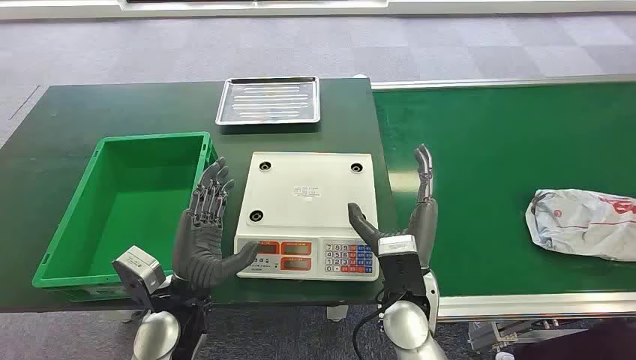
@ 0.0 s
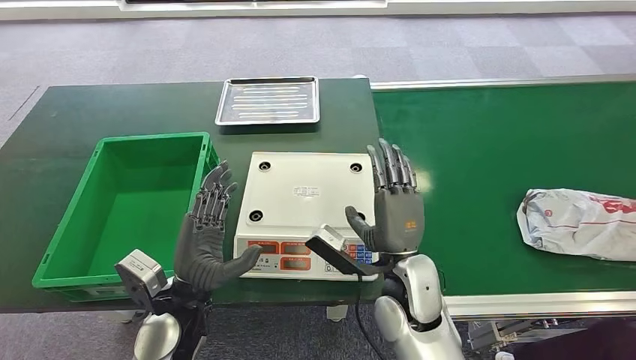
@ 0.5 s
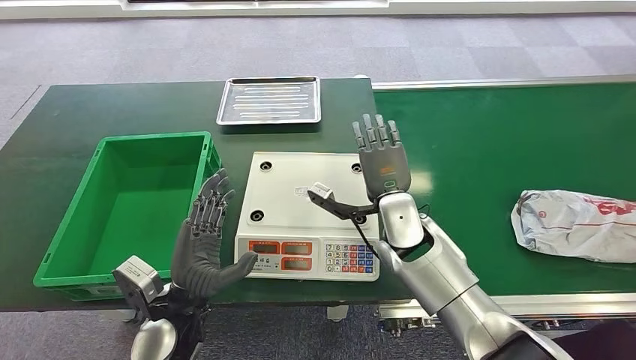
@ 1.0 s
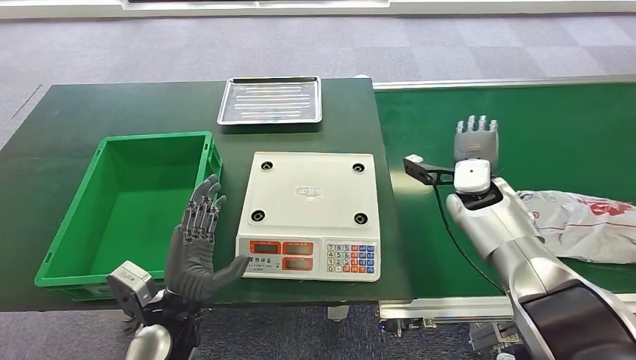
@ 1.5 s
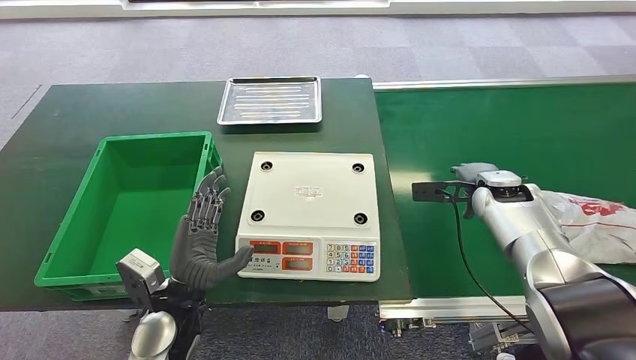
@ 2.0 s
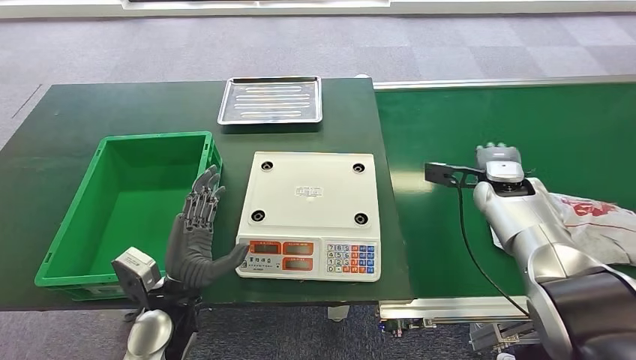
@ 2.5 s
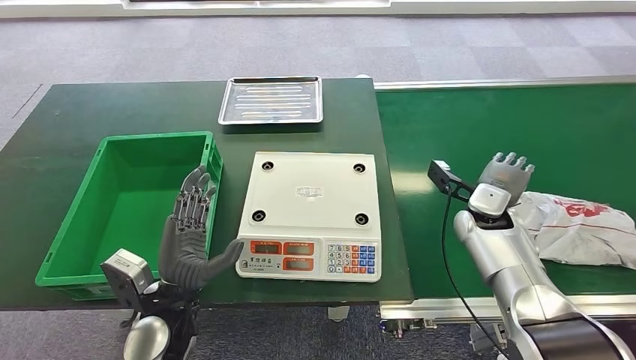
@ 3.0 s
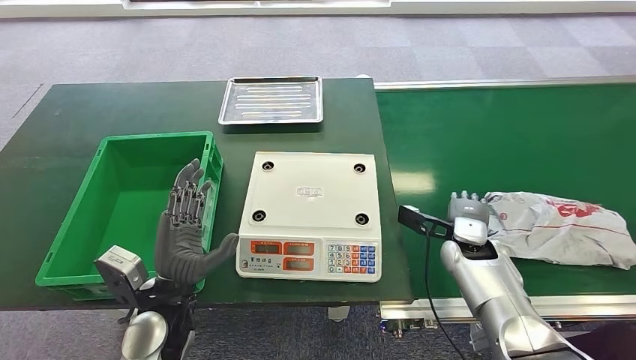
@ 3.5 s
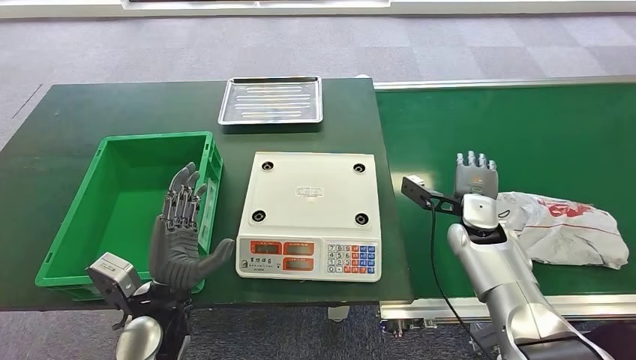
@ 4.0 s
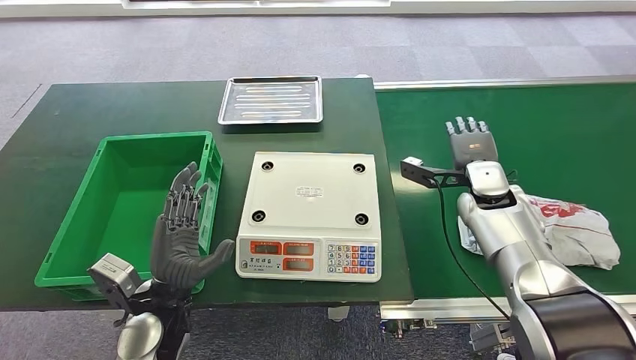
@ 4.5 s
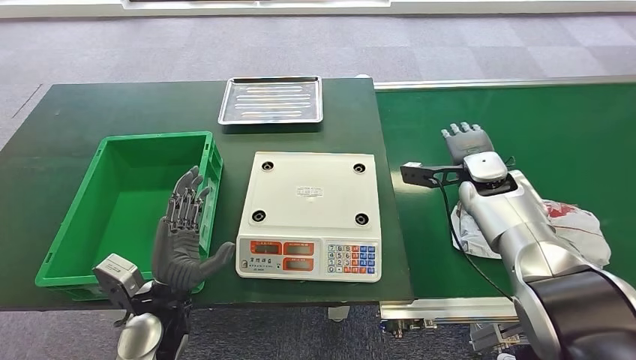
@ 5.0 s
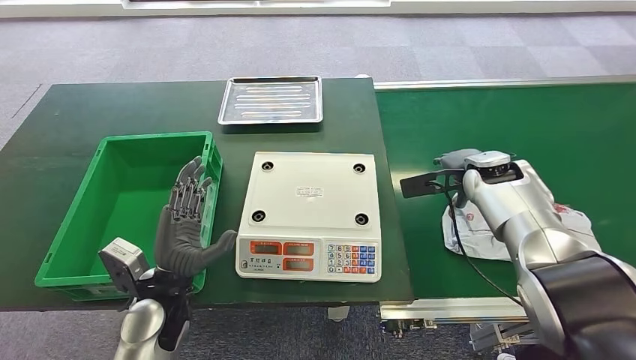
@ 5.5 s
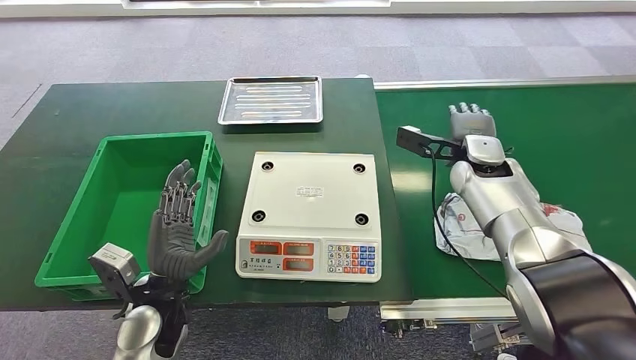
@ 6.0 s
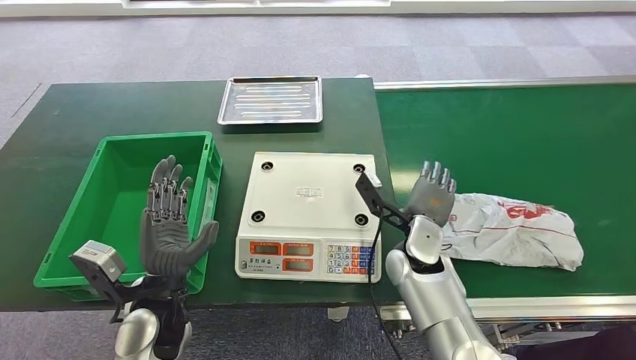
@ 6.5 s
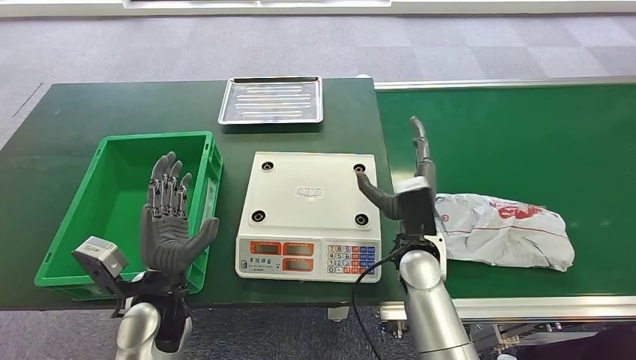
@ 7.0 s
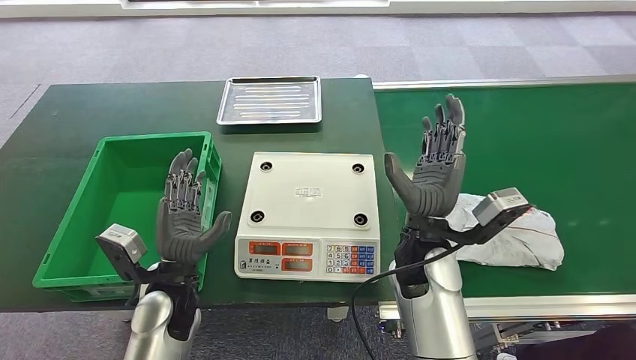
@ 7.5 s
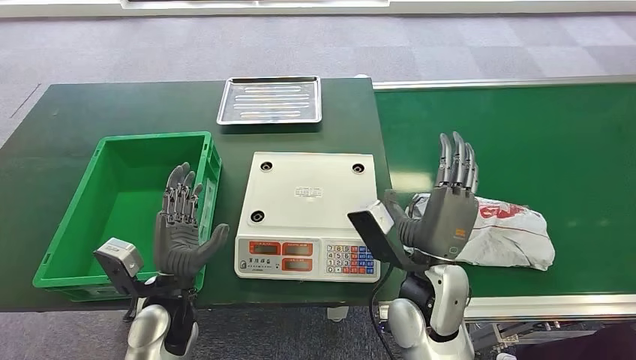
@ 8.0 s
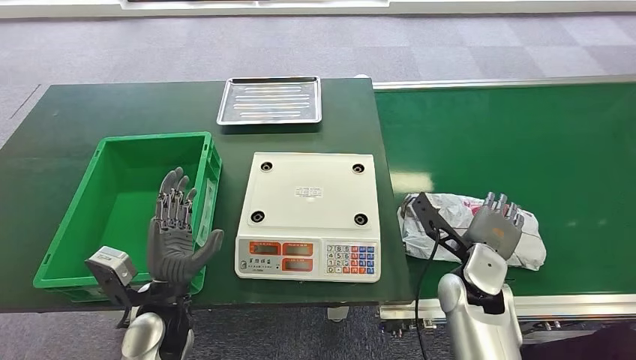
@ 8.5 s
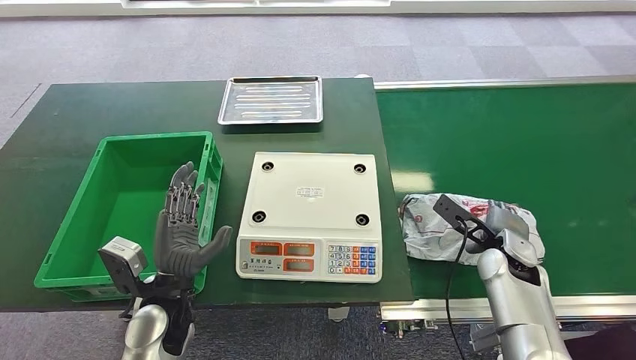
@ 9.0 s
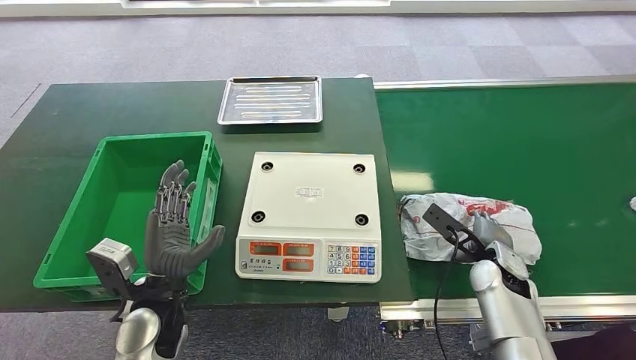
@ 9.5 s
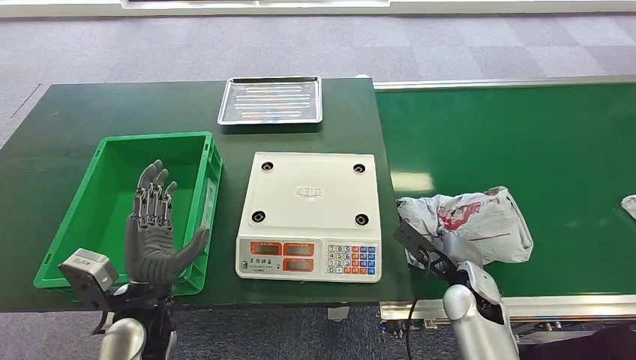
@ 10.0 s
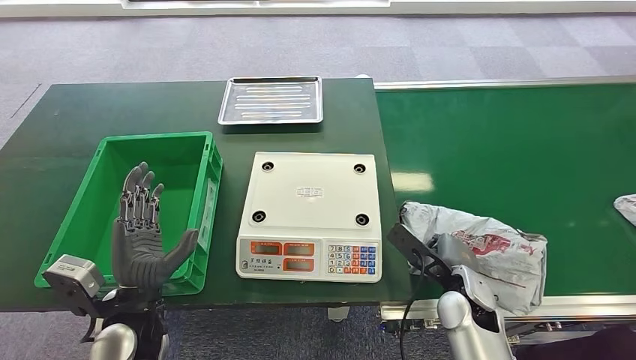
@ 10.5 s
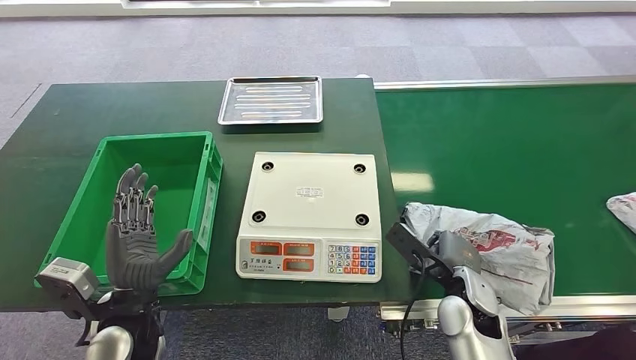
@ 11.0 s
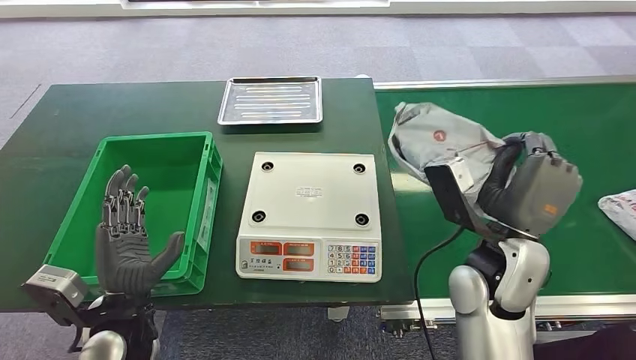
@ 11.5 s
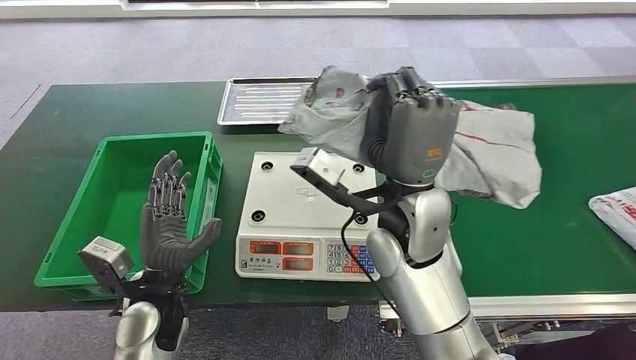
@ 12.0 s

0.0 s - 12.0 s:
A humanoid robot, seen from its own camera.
2.0 s - 4.0 s: The right hand goes about 5 cm to the left.
4.0 s - 6.0 s: The right hand goes approximately 10 cm upward and forward.
6.0 s - 8.0 s: The right hand heads backward and to the left, covering some 25 cm.
8.0 s - 10.0 s: The right hand travels to the right and downward by roughly 15 cm.

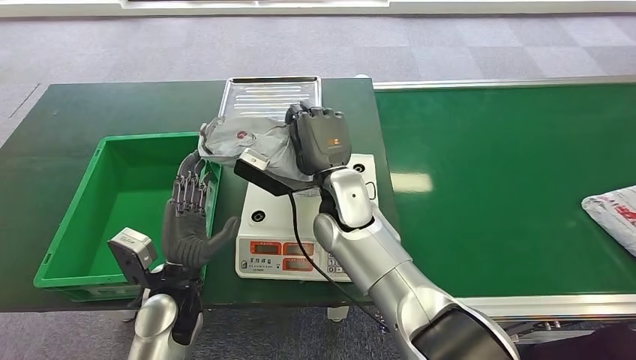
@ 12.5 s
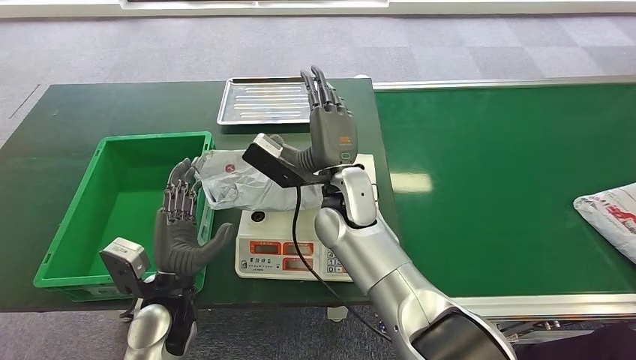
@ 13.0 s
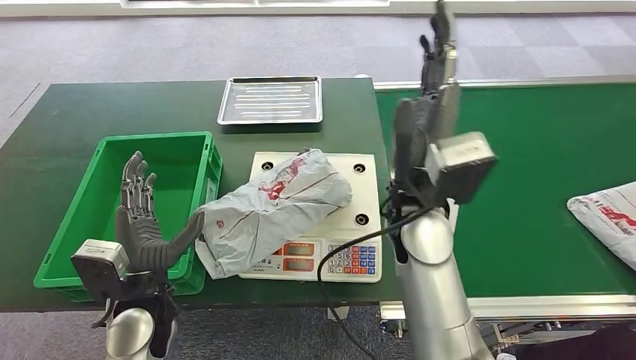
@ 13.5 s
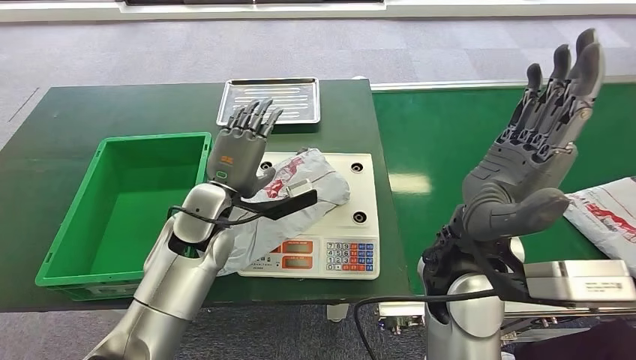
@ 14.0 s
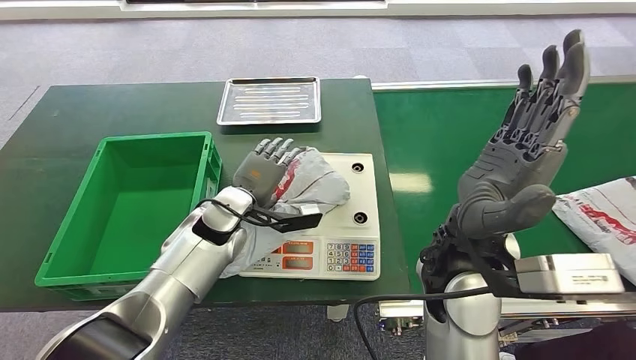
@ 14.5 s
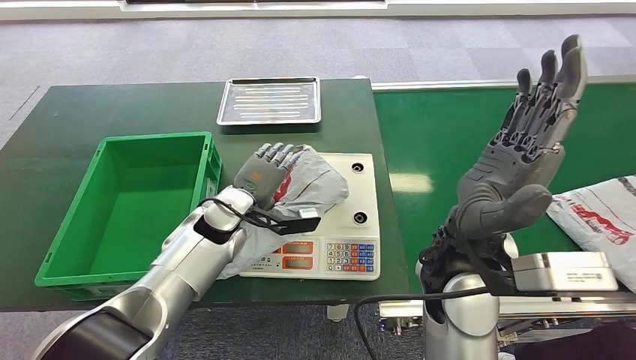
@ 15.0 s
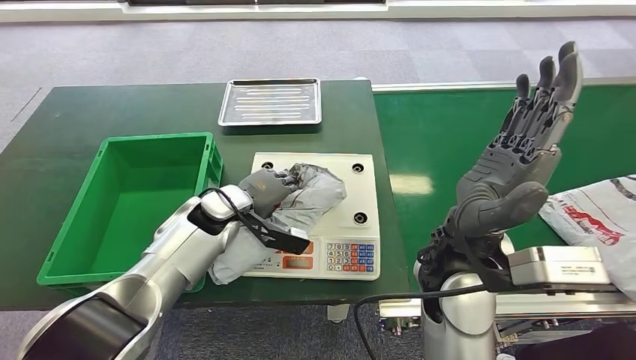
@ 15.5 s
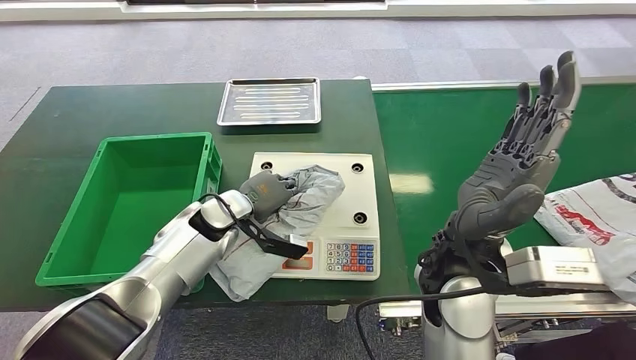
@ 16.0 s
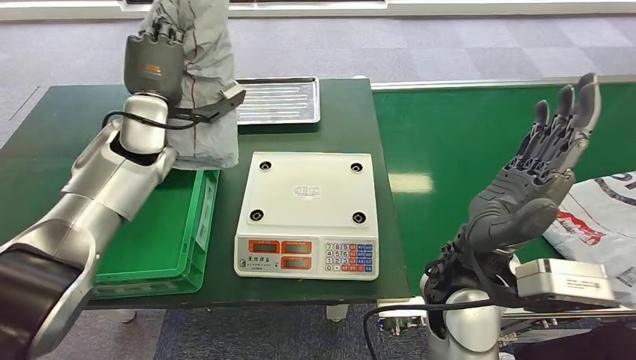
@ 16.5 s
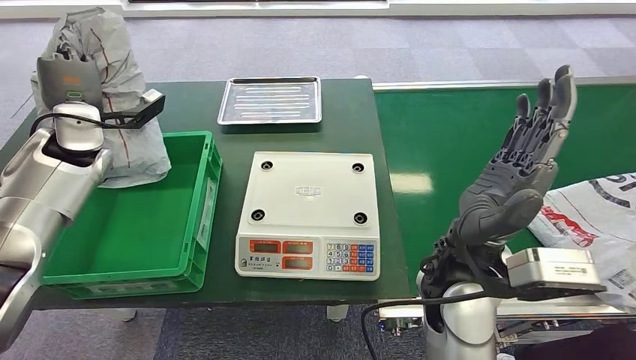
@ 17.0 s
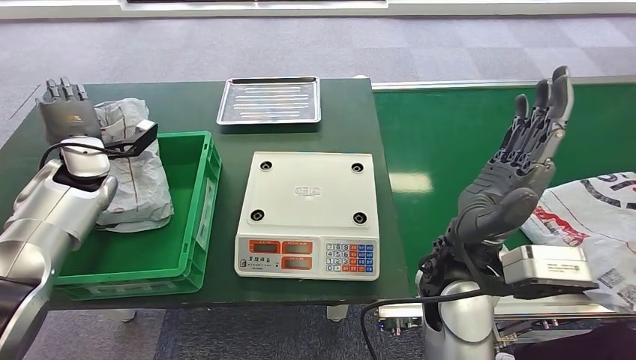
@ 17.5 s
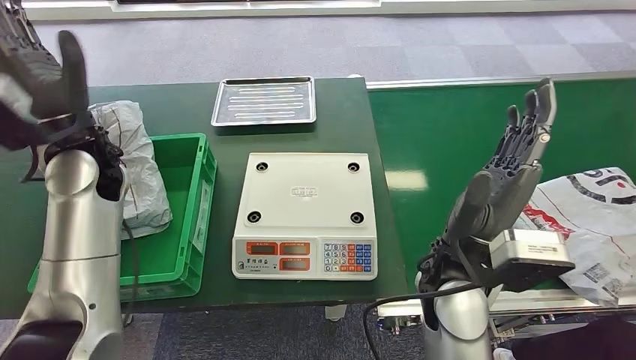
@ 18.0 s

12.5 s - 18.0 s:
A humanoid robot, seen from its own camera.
Step, 13.5 s - 16.5 s: Pick up the package from the inbound machine.
Step, 17.0 s - 18.0 s: Place the package into the parcel locker.
